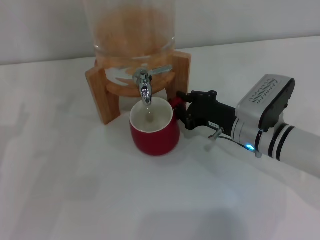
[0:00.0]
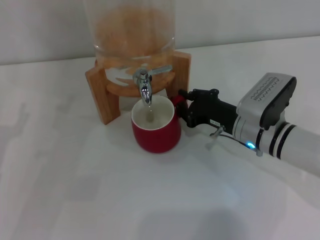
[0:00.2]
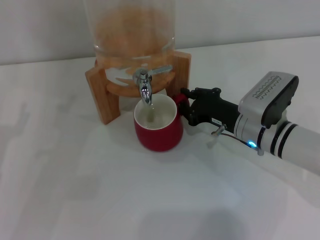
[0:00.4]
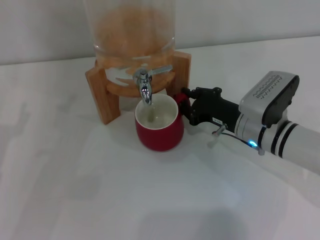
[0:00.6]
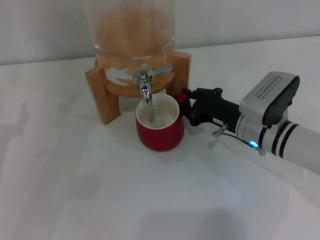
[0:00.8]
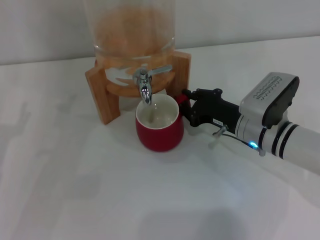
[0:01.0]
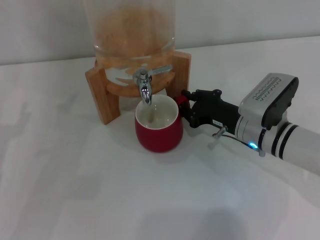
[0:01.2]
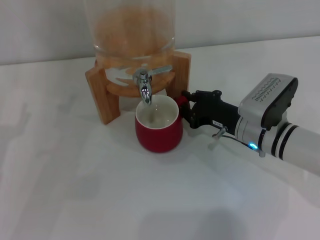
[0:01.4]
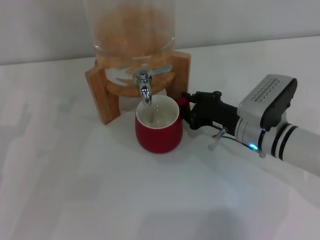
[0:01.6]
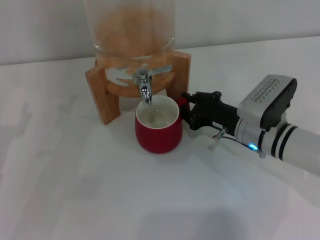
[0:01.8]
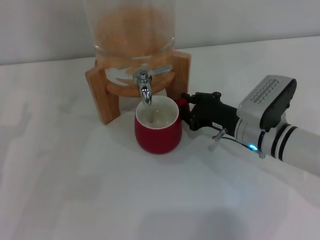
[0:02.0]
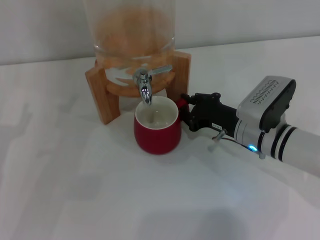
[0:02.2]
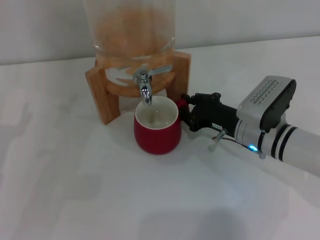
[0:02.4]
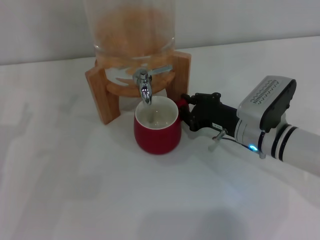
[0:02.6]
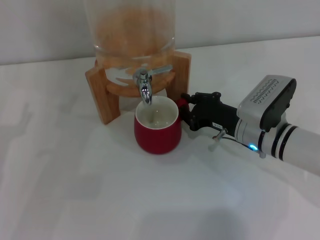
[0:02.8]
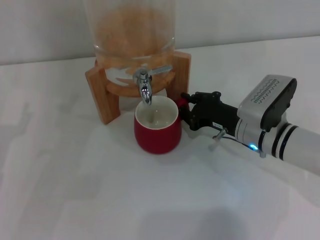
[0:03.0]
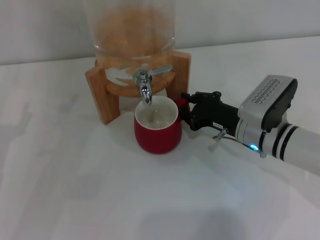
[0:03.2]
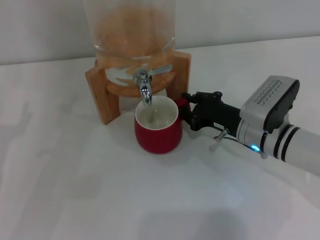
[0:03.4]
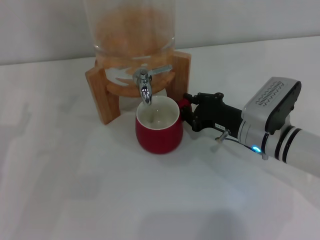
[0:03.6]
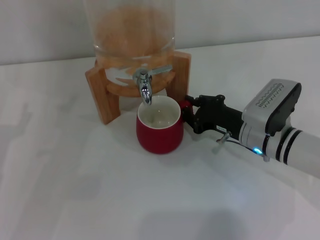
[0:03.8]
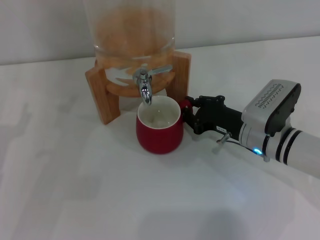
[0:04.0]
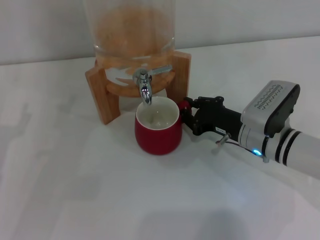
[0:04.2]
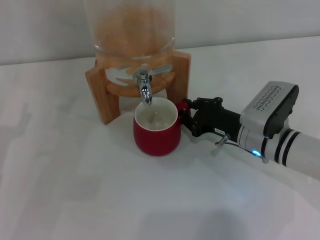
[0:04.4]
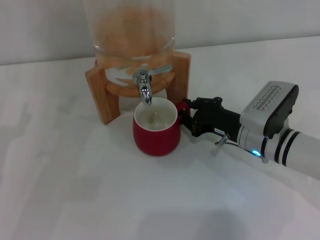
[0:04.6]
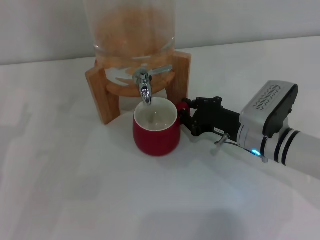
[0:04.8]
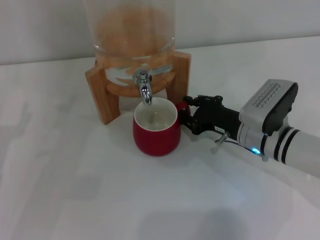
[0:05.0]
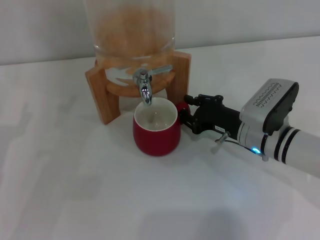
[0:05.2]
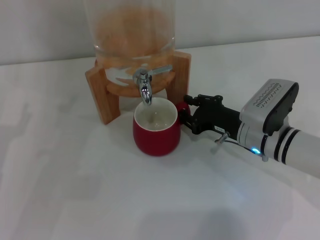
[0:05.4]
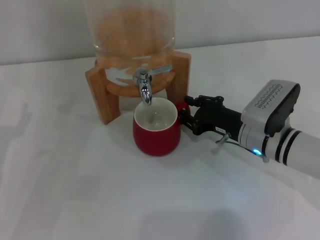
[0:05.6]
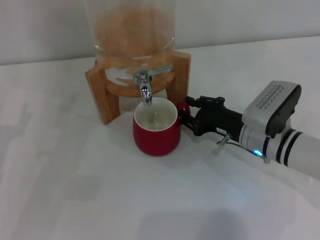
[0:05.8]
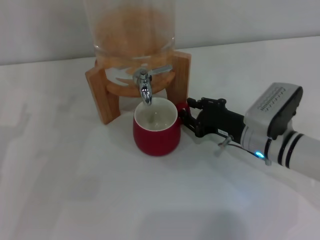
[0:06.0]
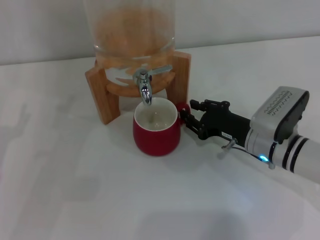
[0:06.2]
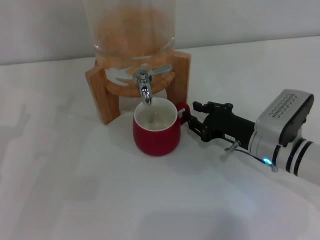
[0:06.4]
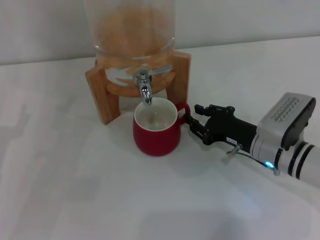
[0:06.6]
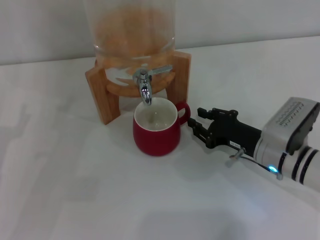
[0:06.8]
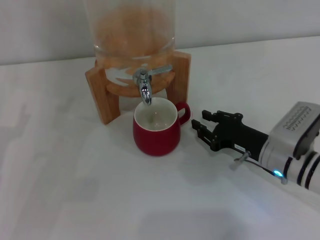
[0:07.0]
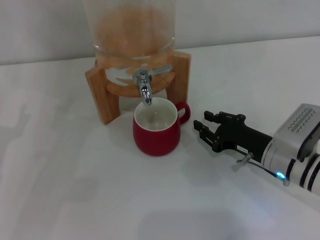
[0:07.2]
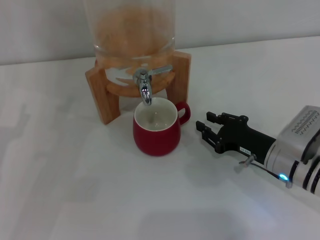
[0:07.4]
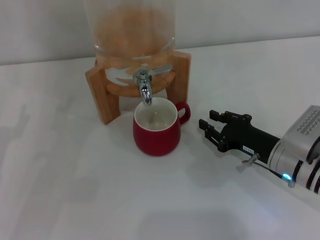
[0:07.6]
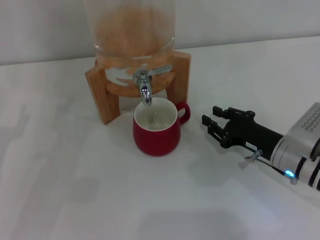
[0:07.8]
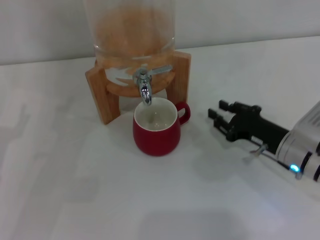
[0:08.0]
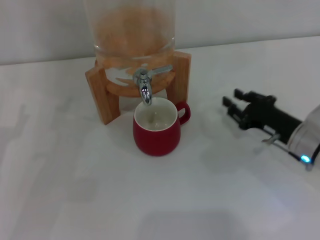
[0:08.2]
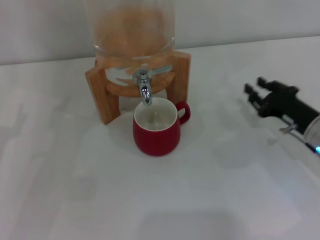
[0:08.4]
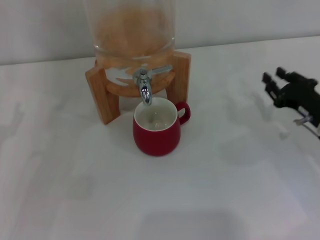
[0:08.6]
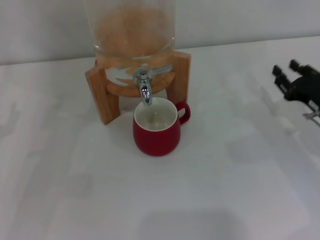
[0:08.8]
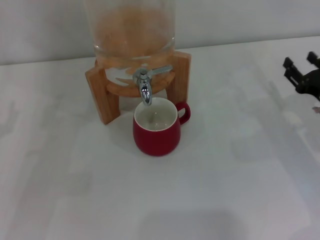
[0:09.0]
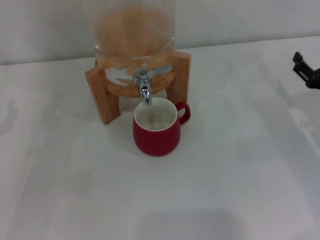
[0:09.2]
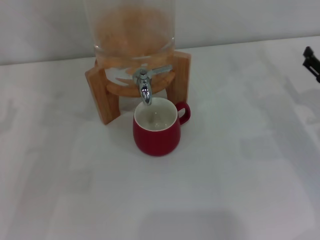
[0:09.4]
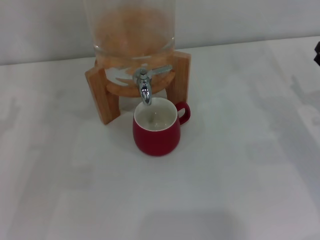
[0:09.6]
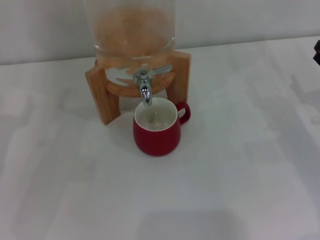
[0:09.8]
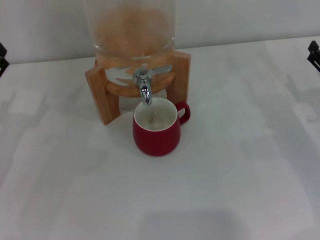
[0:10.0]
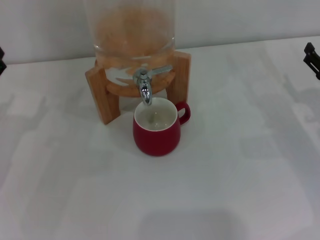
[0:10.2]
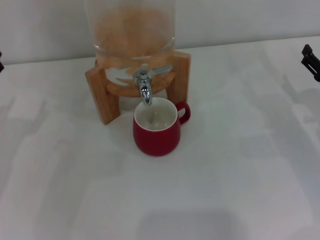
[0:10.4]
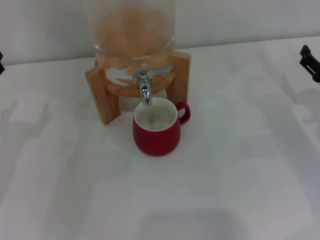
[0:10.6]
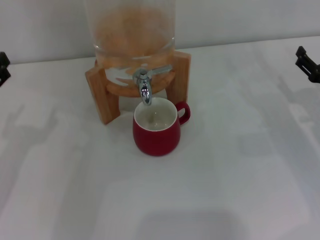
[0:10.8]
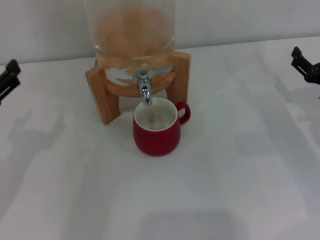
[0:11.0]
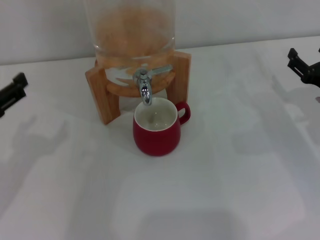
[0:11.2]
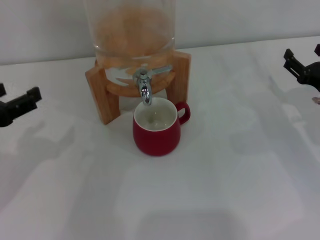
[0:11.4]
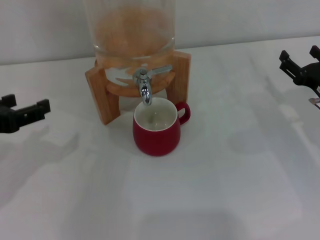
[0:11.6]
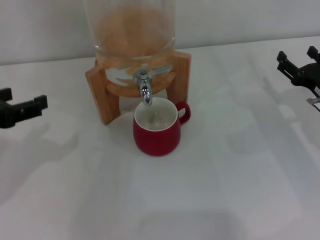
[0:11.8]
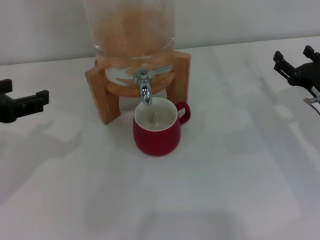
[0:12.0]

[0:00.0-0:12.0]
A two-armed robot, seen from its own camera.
Task of the whole recording: the right gripper pick up the red cup and place it horizontally under the faucet, the left gripper turn on the faucet to fill the cup, and then turn off the faucet.
Step, 0:00.0 to 0:06.4: Move the cup beneath the water dispenser nozzle with the right gripper.
0:00.0 to 0:03.0: The two grippers keep their place.
0:03.0 to 0:04.4: Neither gripper changes place.
0:04.4 to 0:06.0: Both grippers stay put.
0:06.0 to 0:07.6: The right gripper ends up roughly 5 cm from where it was.
0:07.6 to 0:09.0: The right gripper moves to the right, roughly 10 cm.
0:09.0 to 0:10.4: The right gripper opens up.
0:10.4 to 0:12.0: The left gripper heads upward, covering some 10 cm.

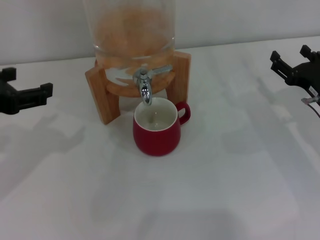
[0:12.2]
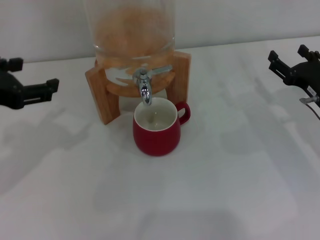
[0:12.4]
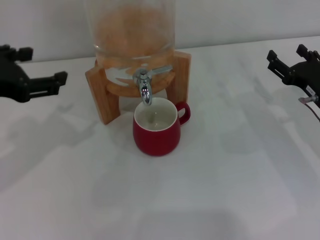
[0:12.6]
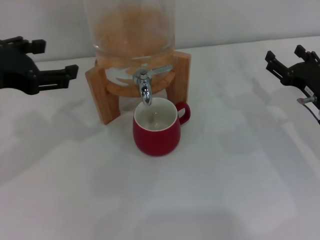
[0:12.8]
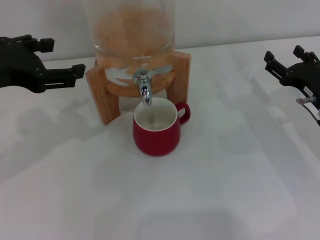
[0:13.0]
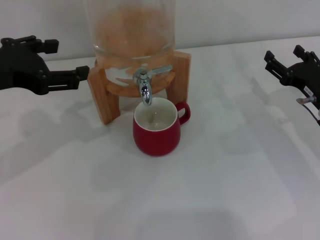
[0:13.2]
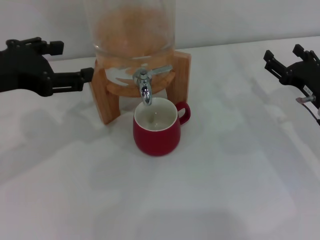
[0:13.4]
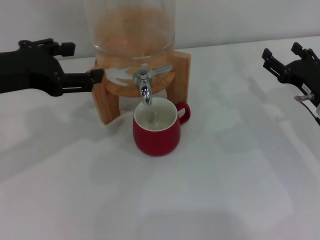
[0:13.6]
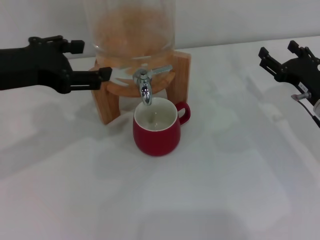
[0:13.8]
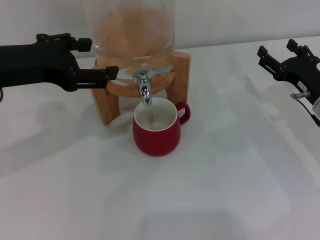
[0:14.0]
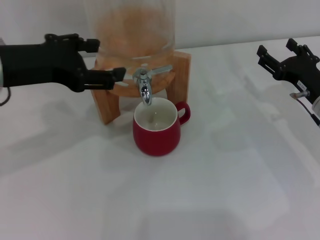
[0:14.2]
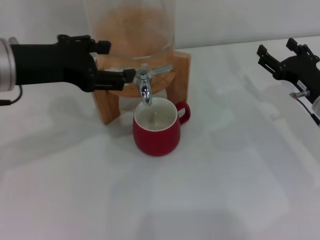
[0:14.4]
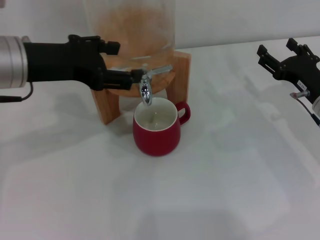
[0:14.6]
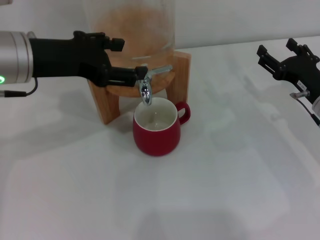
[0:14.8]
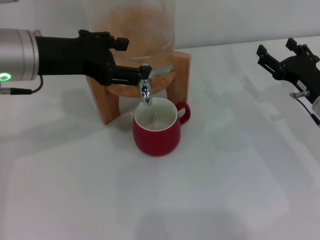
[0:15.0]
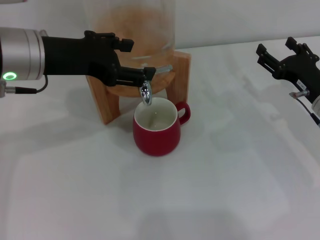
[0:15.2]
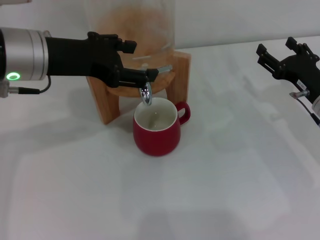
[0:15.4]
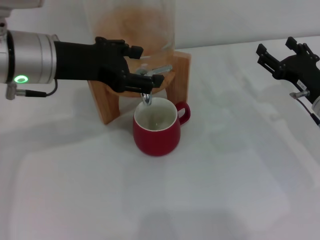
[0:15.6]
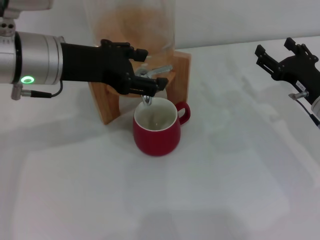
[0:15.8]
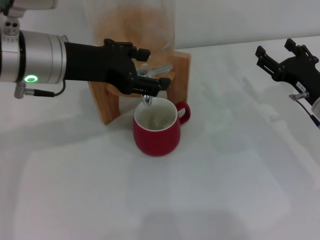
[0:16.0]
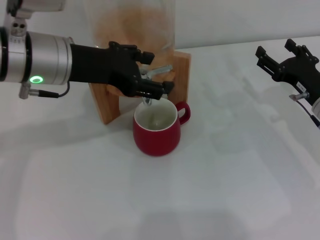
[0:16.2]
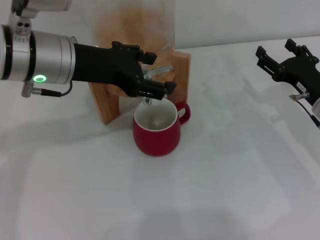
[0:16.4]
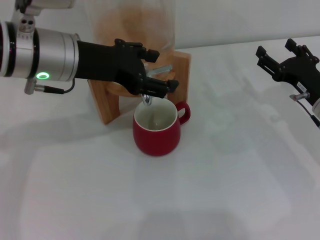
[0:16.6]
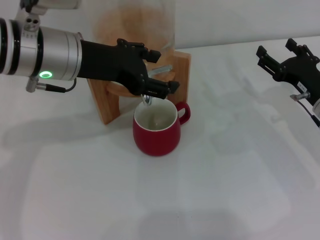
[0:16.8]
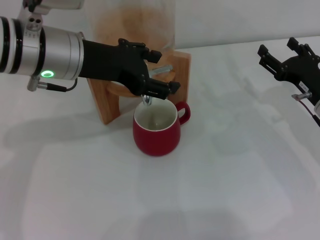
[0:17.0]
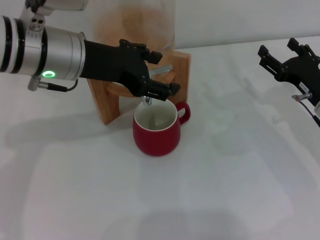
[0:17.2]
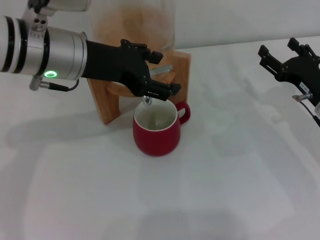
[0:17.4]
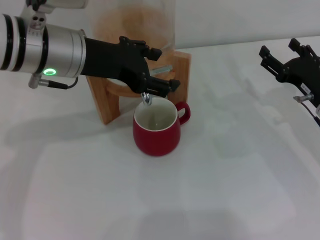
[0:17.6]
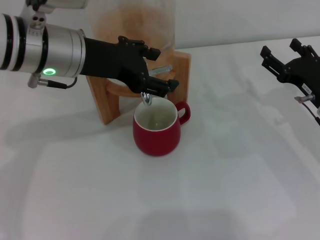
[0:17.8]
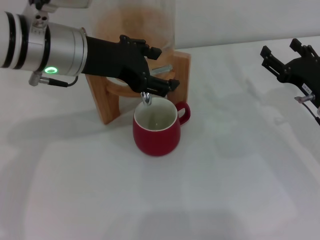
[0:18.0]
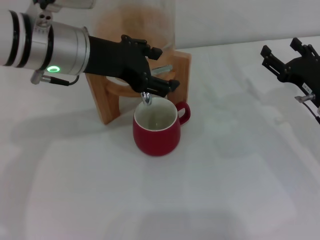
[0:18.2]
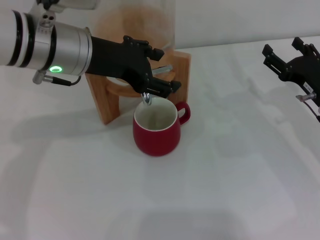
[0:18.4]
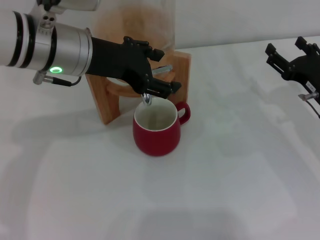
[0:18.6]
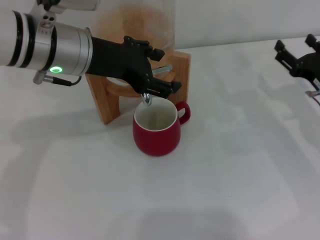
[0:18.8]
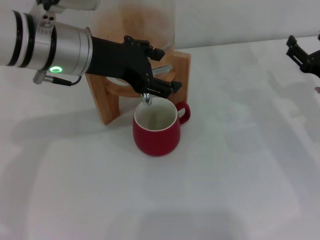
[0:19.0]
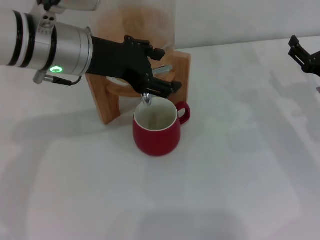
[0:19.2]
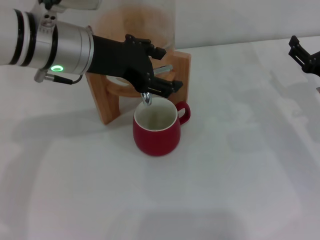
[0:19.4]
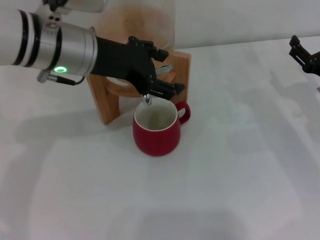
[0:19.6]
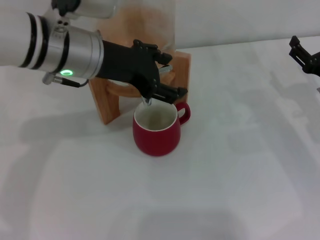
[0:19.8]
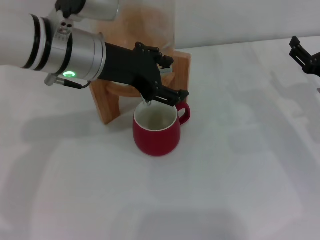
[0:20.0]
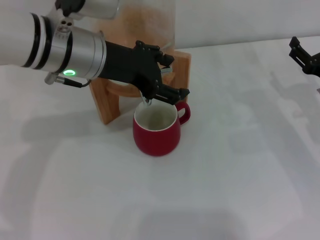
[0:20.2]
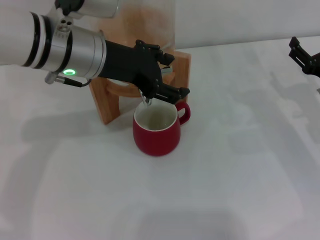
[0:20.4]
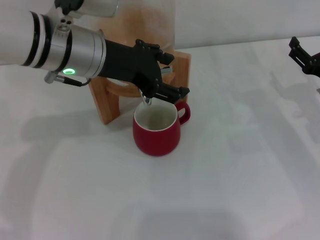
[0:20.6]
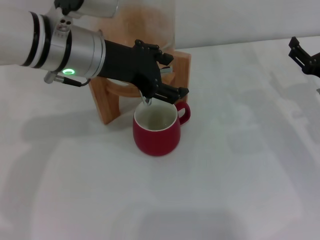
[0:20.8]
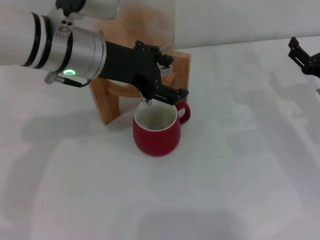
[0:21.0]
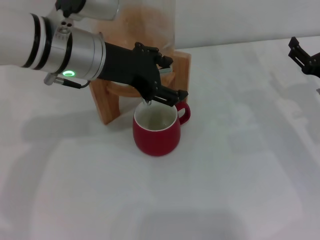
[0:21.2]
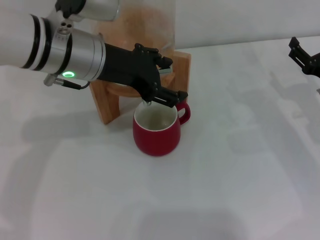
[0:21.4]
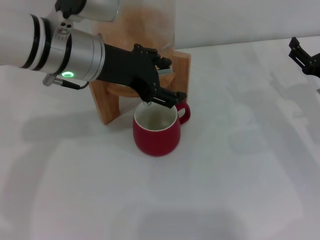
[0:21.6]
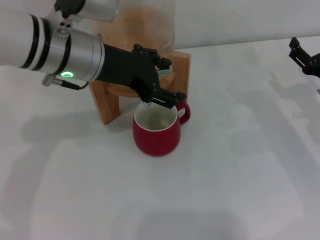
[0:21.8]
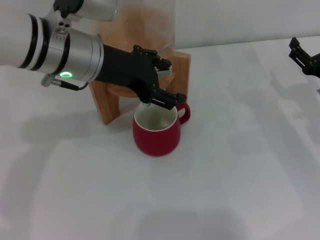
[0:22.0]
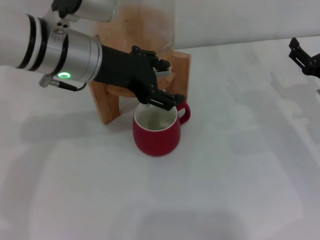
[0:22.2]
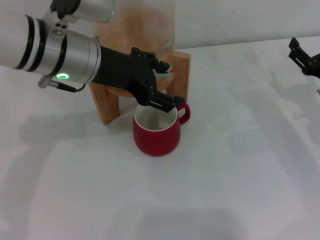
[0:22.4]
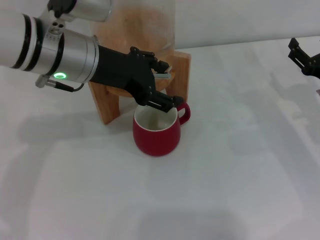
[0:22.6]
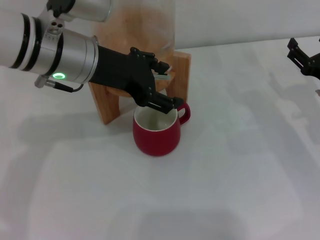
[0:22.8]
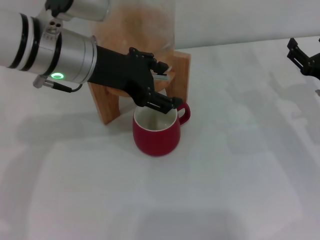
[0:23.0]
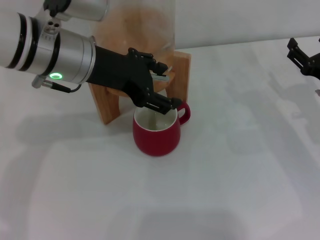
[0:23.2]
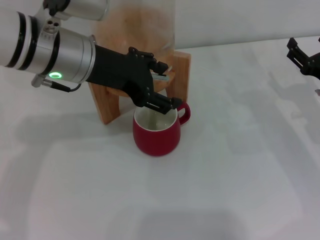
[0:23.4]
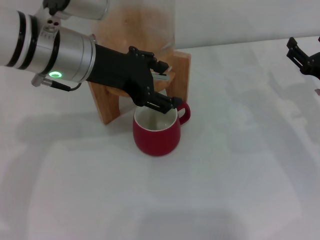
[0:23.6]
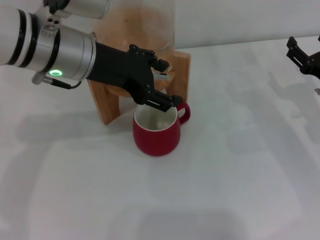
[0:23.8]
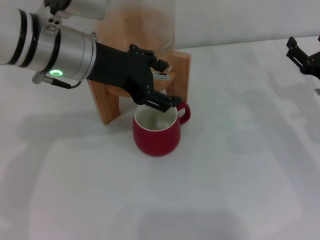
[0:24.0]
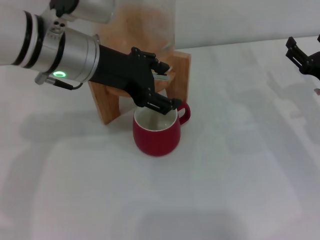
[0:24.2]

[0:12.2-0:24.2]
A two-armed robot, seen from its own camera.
Task of the whole recording: the right gripper pick up the red cup and place it horizontally under the faucet, the left gripper turn on the faucet to fill the cup, and then turn off the faucet.
0:12.2 to 0:13.8: The left gripper shifts by approximately 5 cm.
0:13.8 to 0:15.2: The left gripper travels to the right by roughly 5 cm.
0:15.2 to 0:18.2: The grippers stay close to where they were, moving slightly.
0:18.2 to 0:19.8: The grippers make only small movements.
0:19.8 to 0:24.2: The two grippers keep their place.
